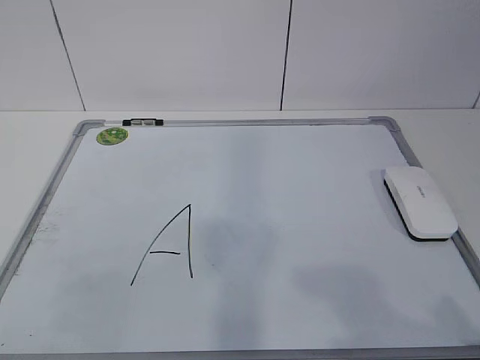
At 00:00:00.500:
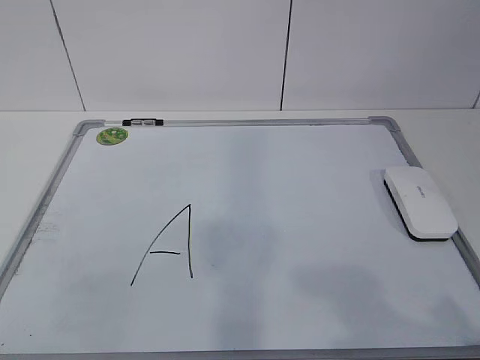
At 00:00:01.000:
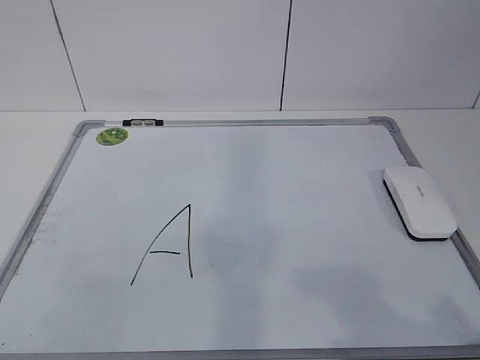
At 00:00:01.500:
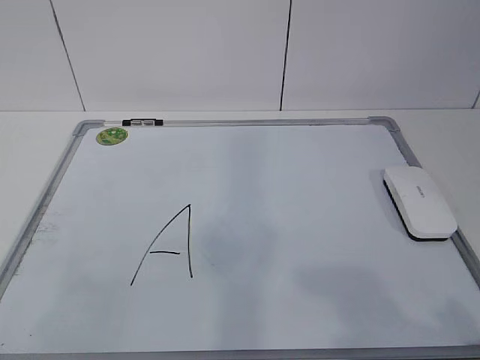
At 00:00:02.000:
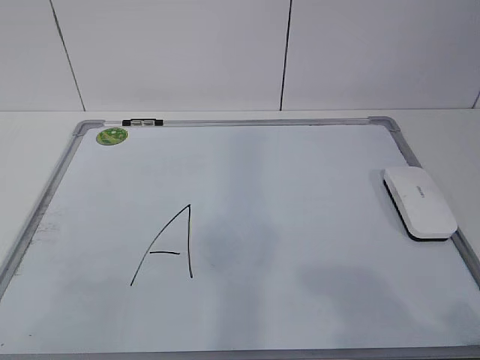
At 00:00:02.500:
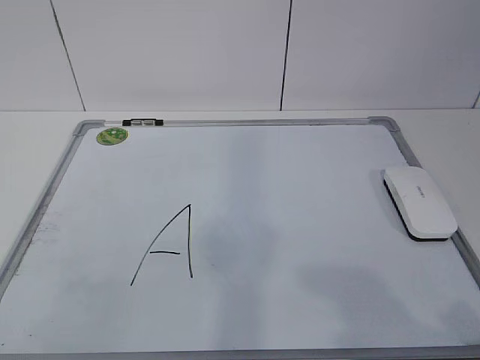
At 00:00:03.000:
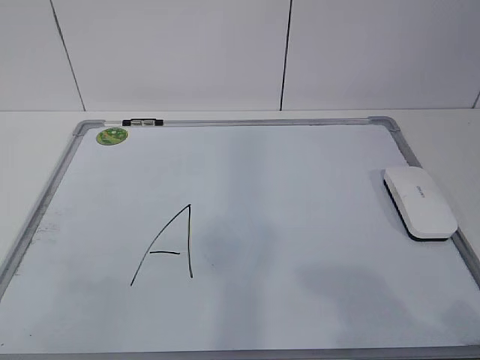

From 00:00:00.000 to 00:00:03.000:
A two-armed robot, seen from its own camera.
Task of the whole recording: pick up the eraser on the blackboard and erase the letter "a".
From 00:00:01.500 to 00:00:03.000: Both grippers stay put.
